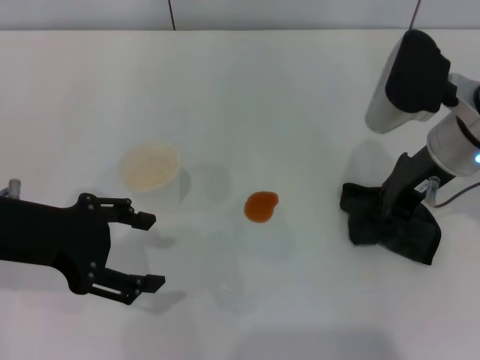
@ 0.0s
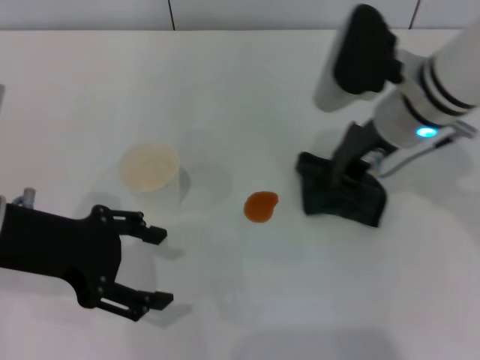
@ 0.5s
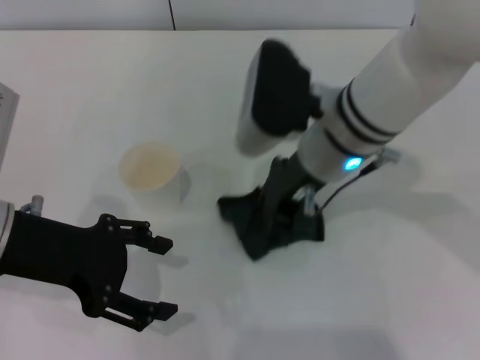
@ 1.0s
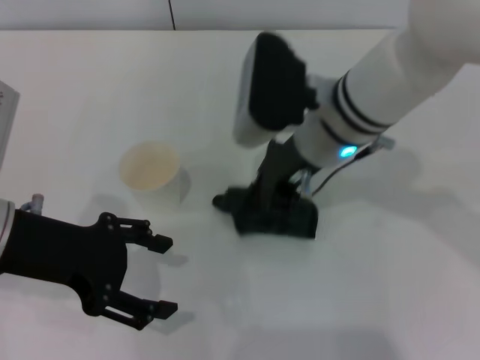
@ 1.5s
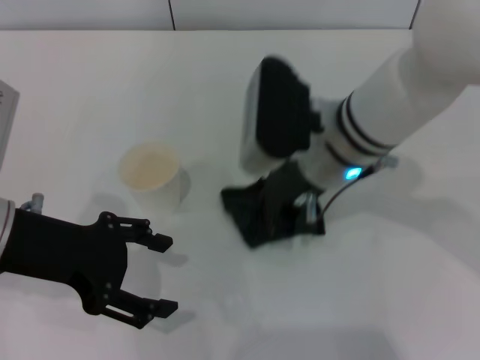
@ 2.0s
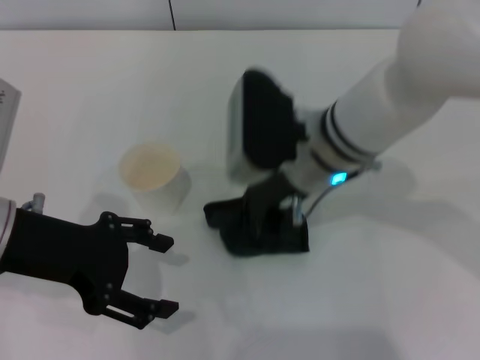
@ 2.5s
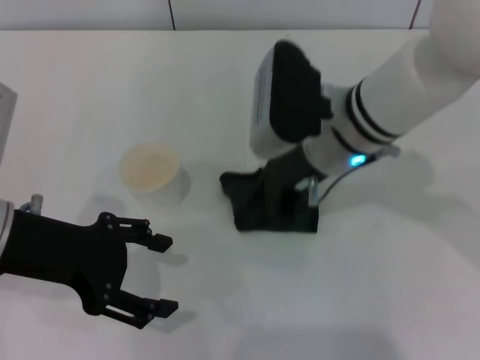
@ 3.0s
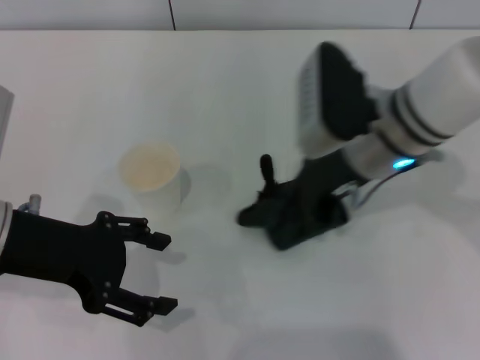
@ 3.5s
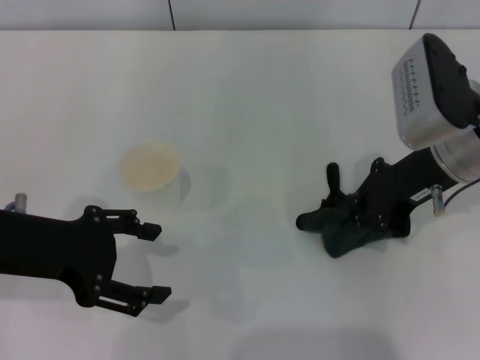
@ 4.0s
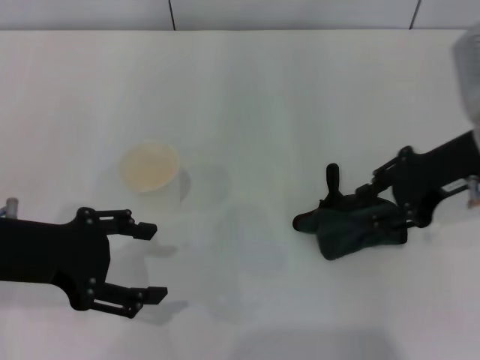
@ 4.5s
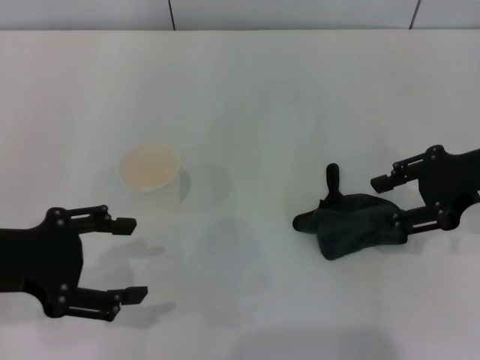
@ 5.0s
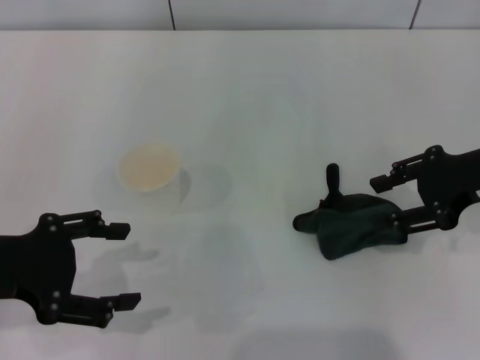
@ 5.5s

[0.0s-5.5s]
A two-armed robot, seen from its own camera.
Step, 0.5s to 3.0s: Wipe the stains off the table with the right gripper.
Step, 3.5s to 4.5s: Place the rag on the table with the right gripper.
0.0s to 2.0s: The right gripper is displaced to the left by some 10 cm.
2.0s to 3.5s: The right gripper shifts some 5 cm to the right.
3.5s to 5.5s: The right gripper travels to the right by approximately 15 cm, and opens; the left gripper moves about 5 cm.
